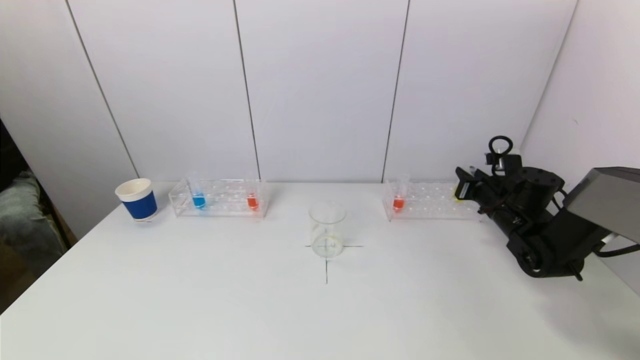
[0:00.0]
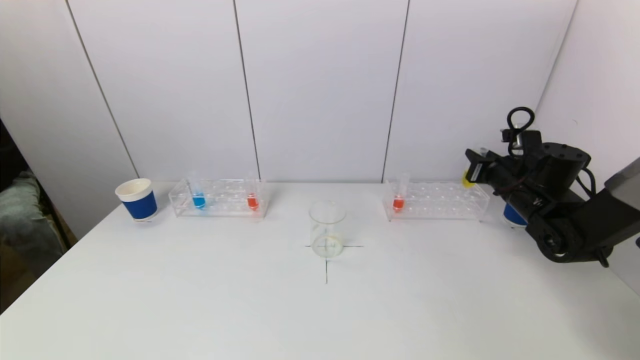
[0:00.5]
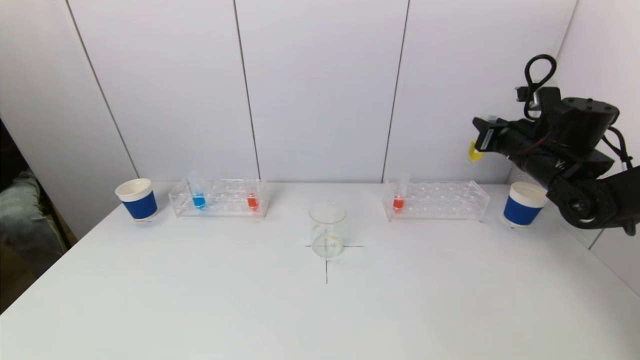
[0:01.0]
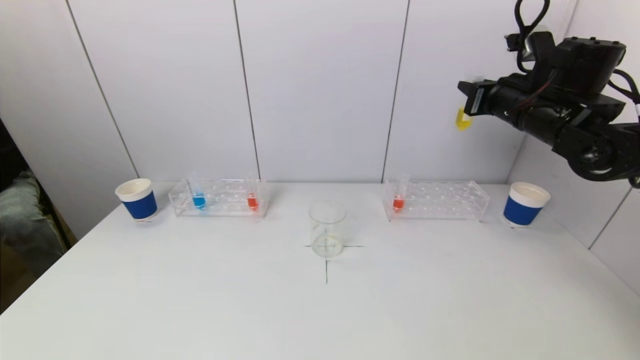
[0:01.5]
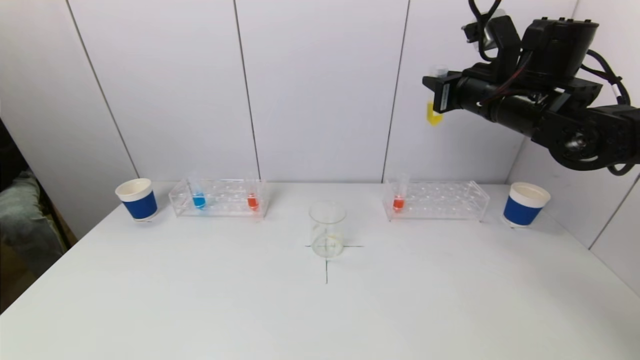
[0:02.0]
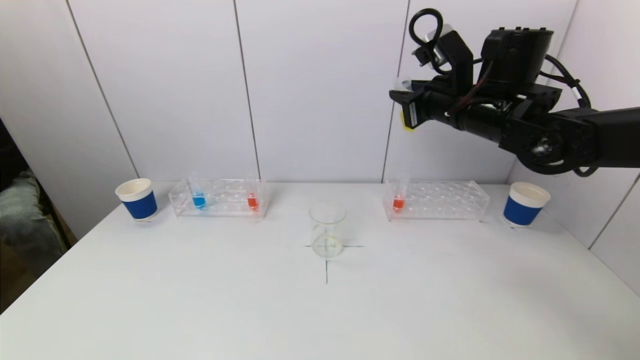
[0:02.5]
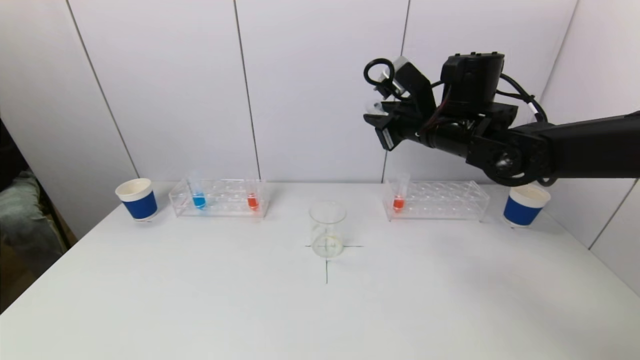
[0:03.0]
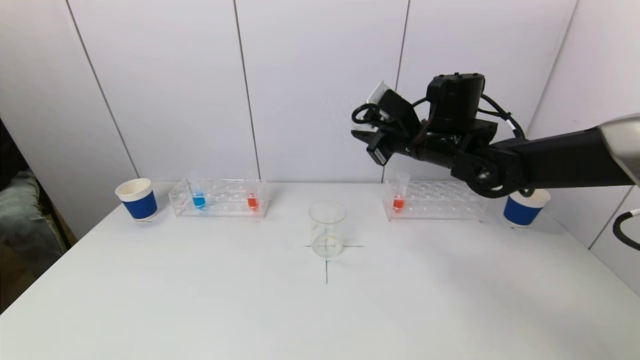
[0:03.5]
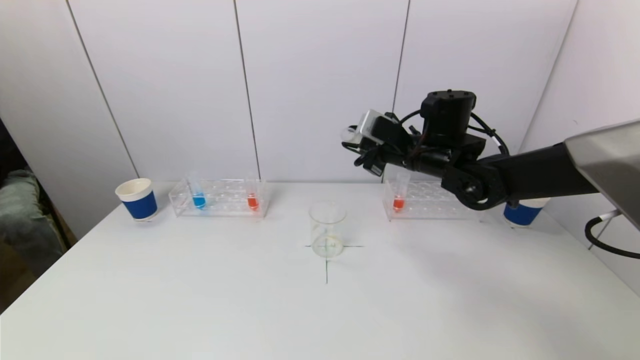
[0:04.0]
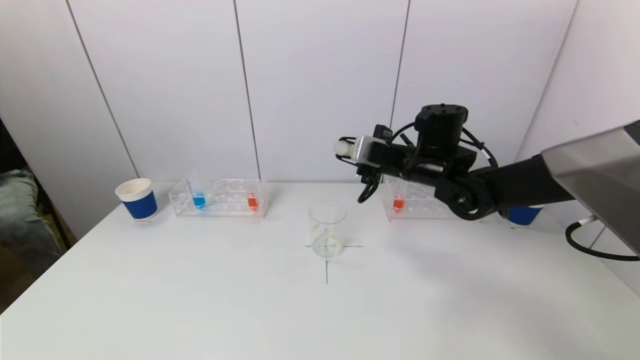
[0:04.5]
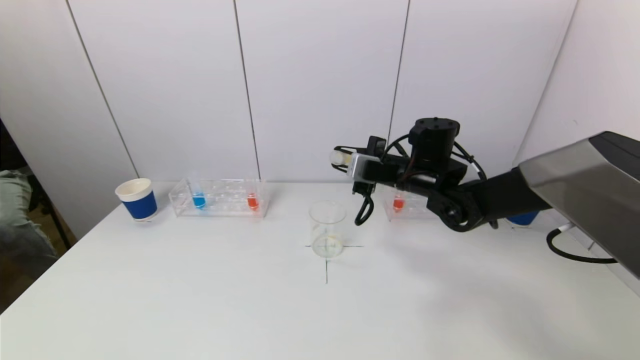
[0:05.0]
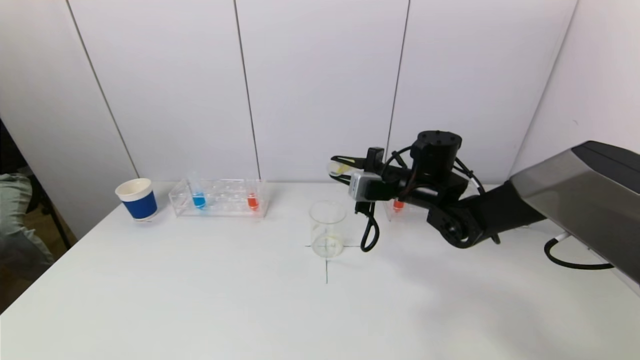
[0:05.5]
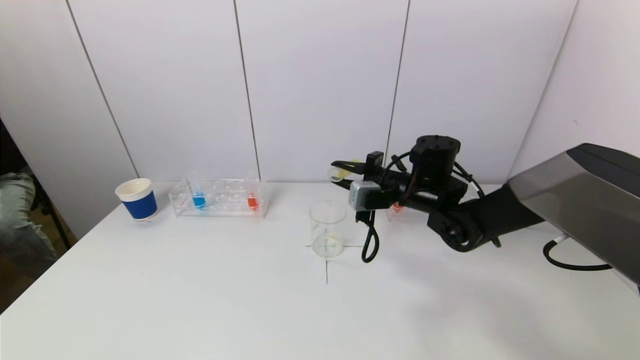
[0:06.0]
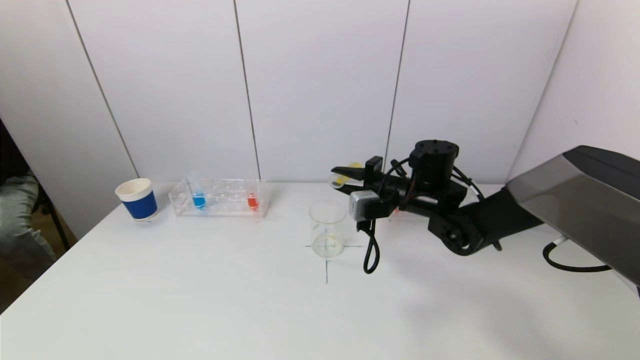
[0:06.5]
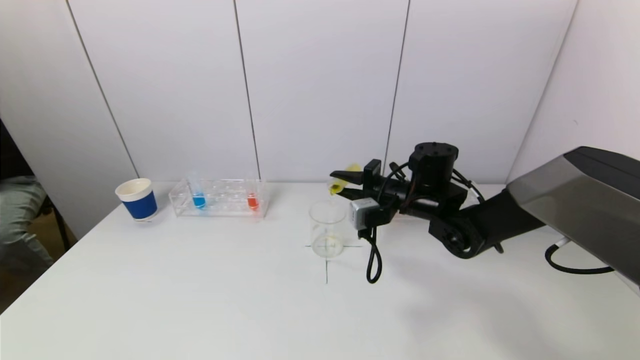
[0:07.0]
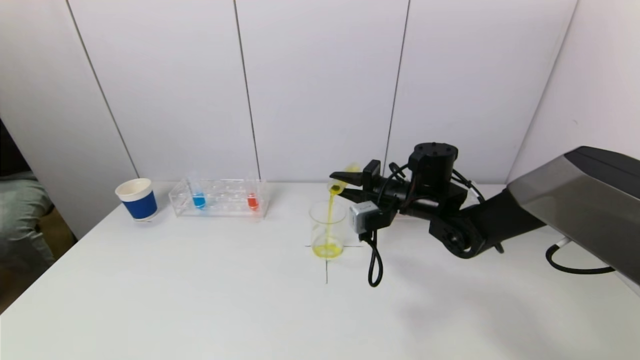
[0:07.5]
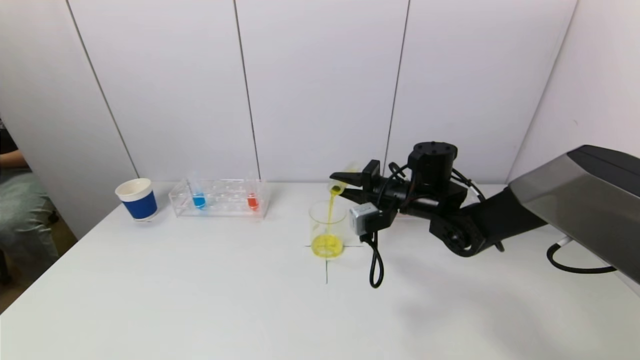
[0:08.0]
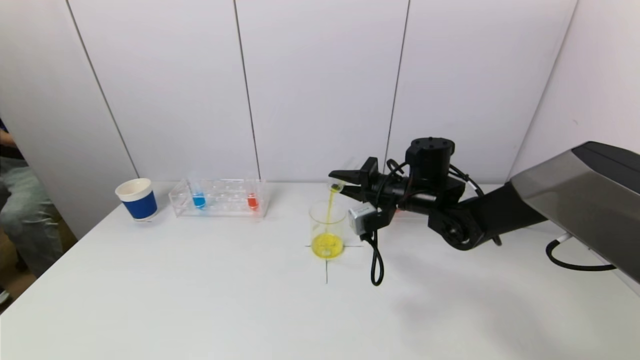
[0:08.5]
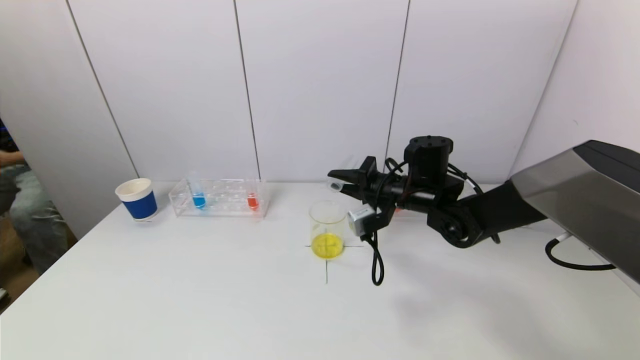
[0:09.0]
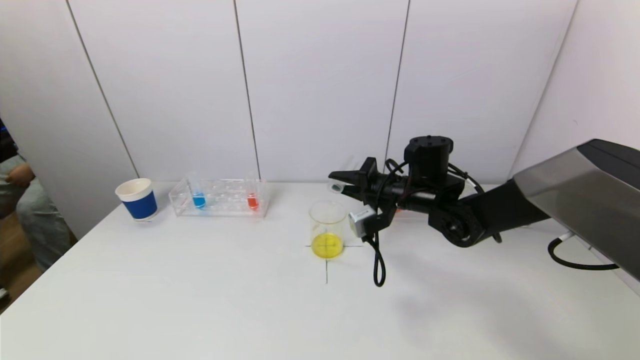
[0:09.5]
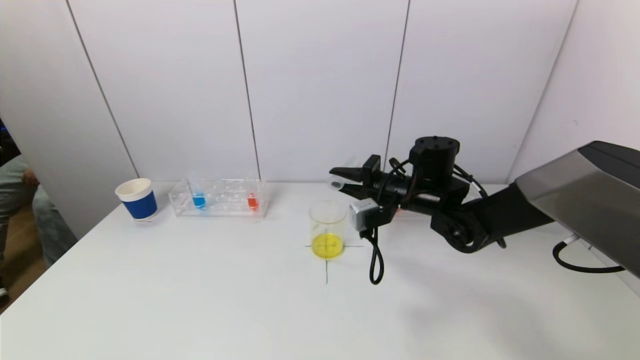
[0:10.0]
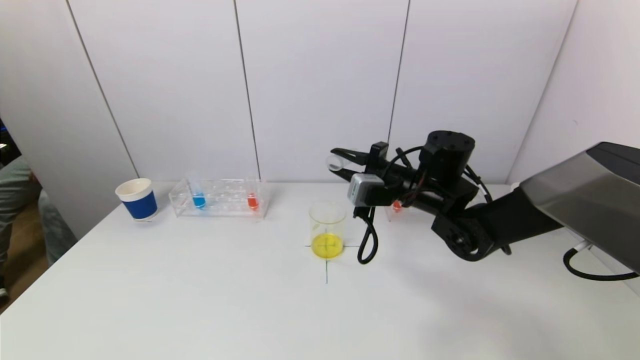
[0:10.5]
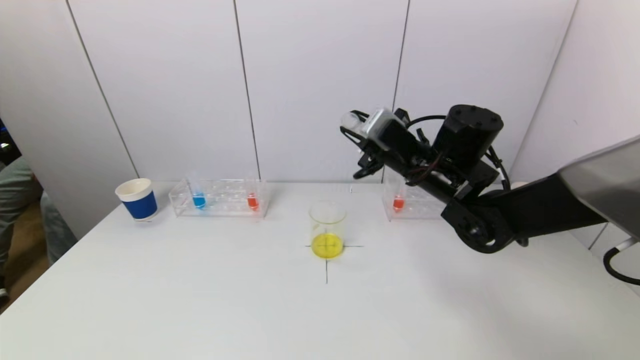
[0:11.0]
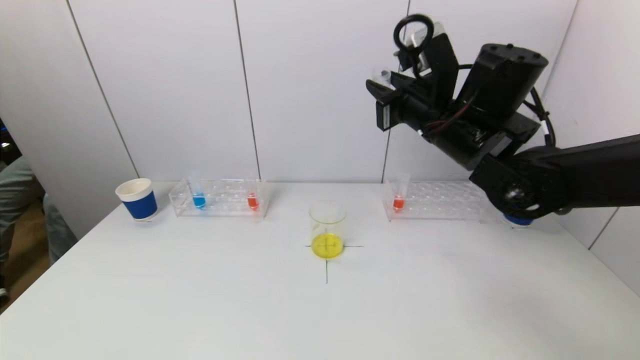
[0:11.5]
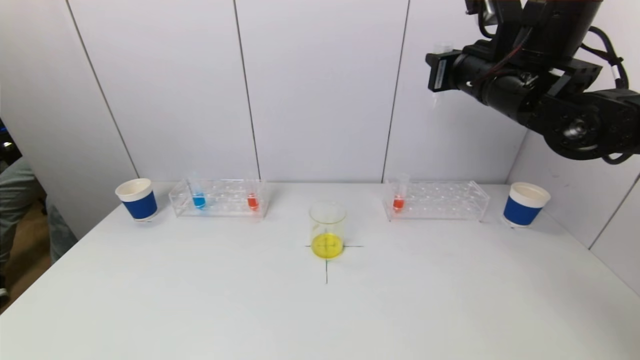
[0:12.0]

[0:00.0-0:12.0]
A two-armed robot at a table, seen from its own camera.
Task of the whole recording: pick up a test tube with pigment on left test tube rack and a test tube with pigment on right test tube rack by grippers and pour them into the beaker.
Step, 0:00.0 to 0:09.5: Pour the yellow reagent into the graduated cylinder with the right gripper.
0:00.0 to 0:02.0: The right gripper travels upward and to the left by approximately 25 cm.
0:02.0 to 0:04.0: The right gripper is displaced downward and to the left by roughly 10 cm.
0:04.0 to 0:06.0: The right gripper shifts about 5 cm downward.
0:06.0 to 0:08.0: There are only small adjustments of the grippers.
0:08.0 to 0:10.0: The grippers stay close to where they were, moving slightly.
0:10.0 to 0:12.0: The right gripper is displaced upward and to the right by about 20 cm.

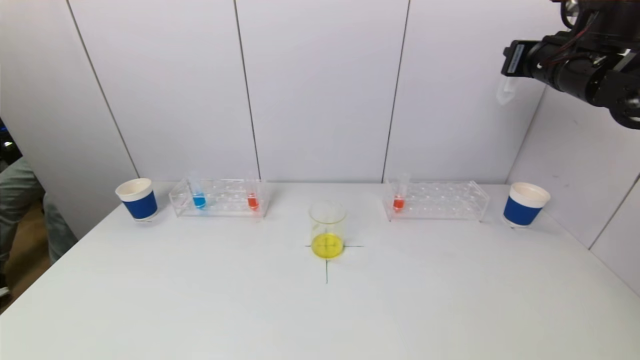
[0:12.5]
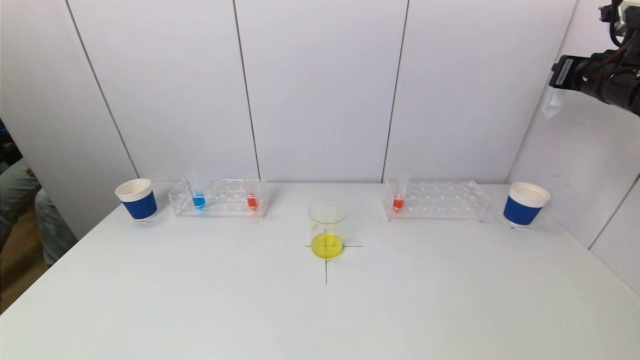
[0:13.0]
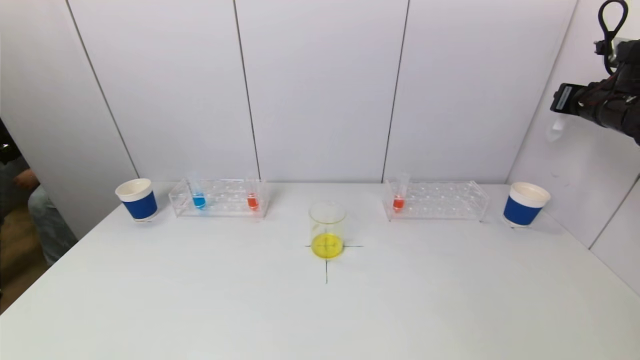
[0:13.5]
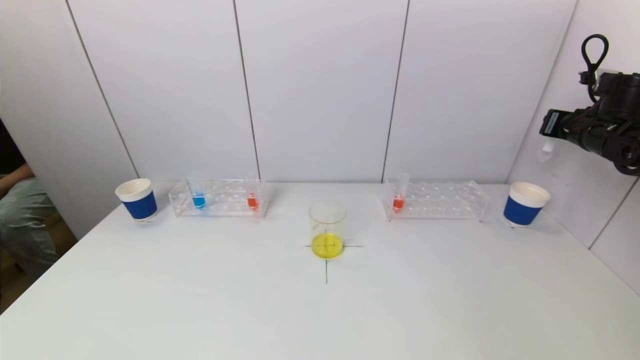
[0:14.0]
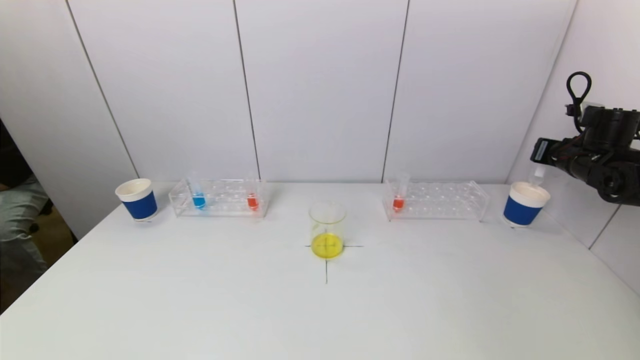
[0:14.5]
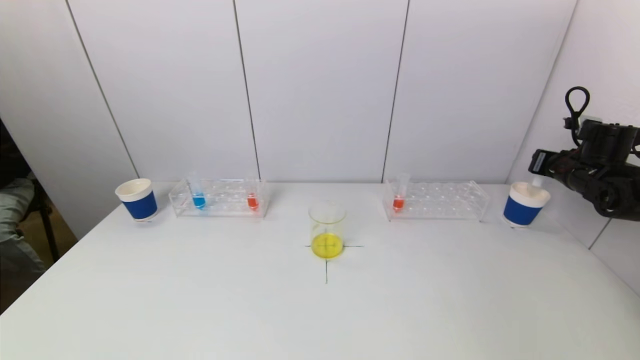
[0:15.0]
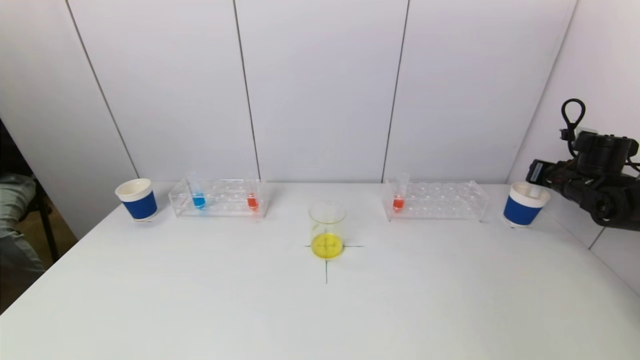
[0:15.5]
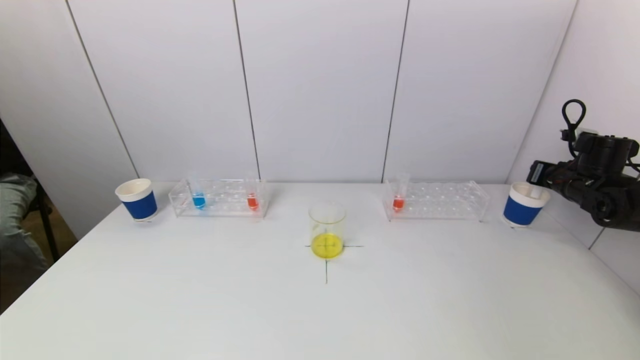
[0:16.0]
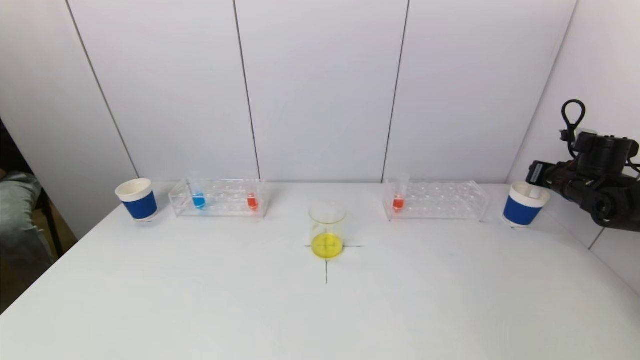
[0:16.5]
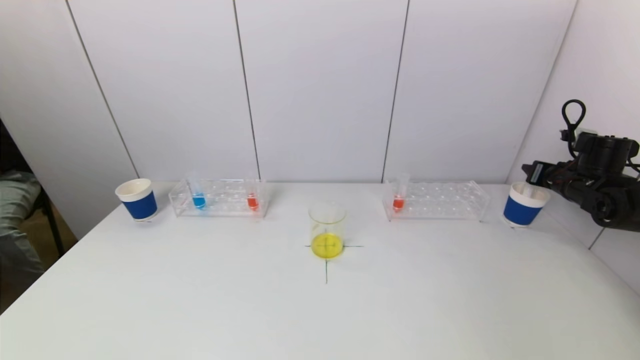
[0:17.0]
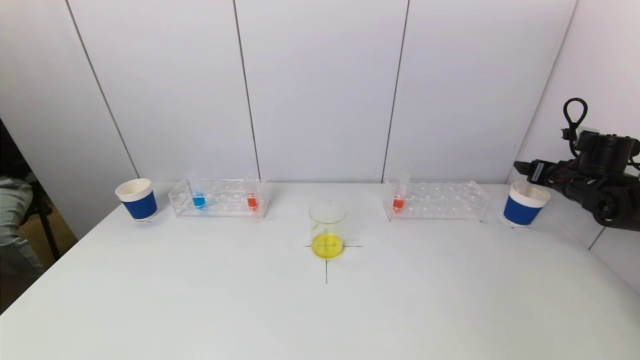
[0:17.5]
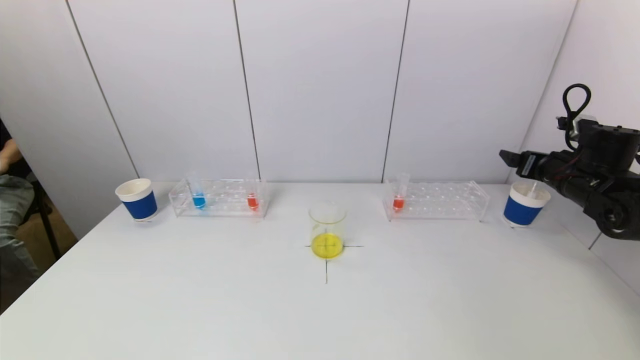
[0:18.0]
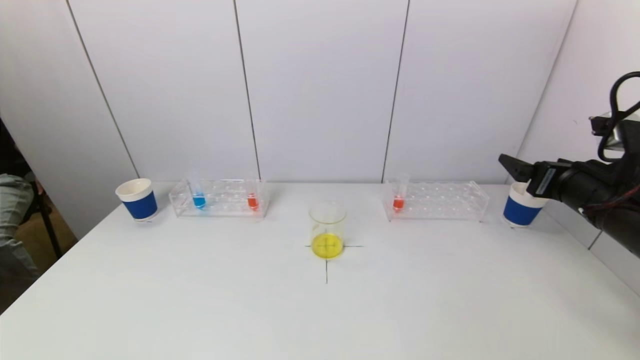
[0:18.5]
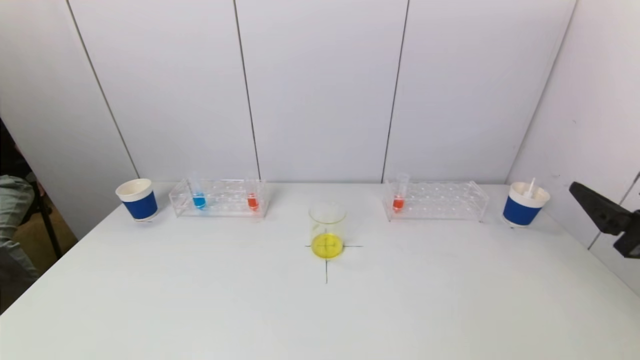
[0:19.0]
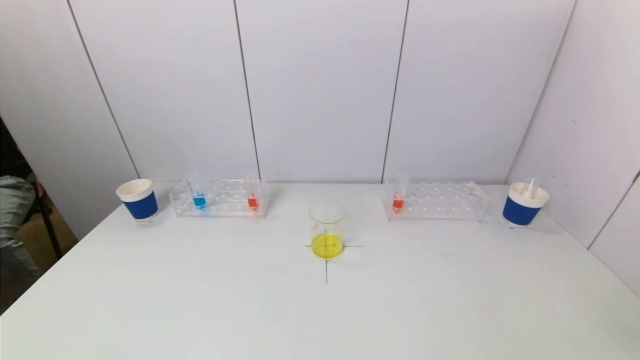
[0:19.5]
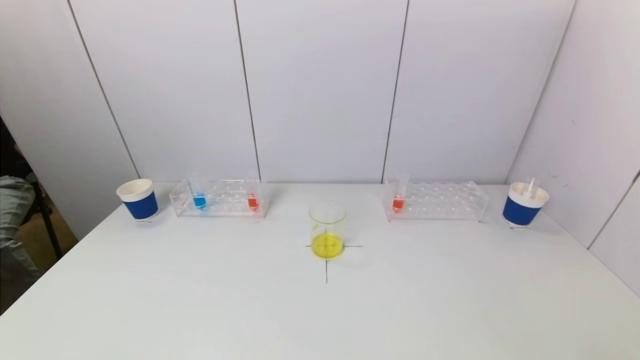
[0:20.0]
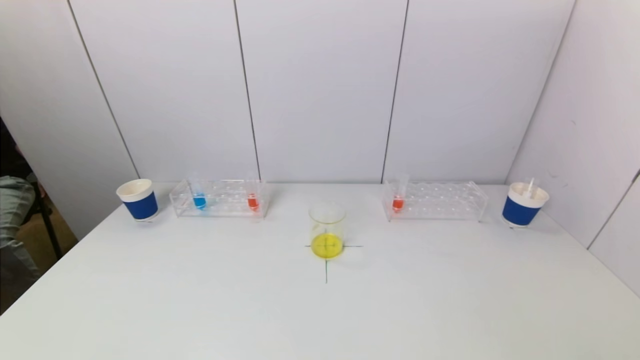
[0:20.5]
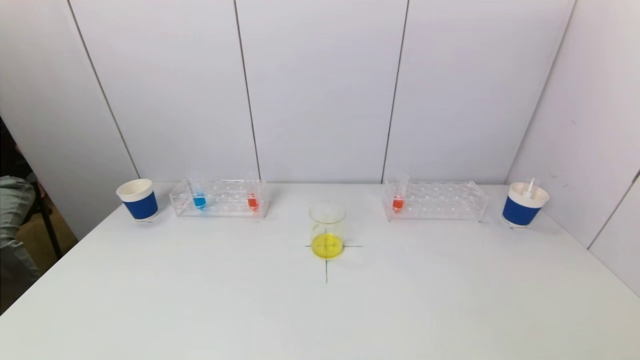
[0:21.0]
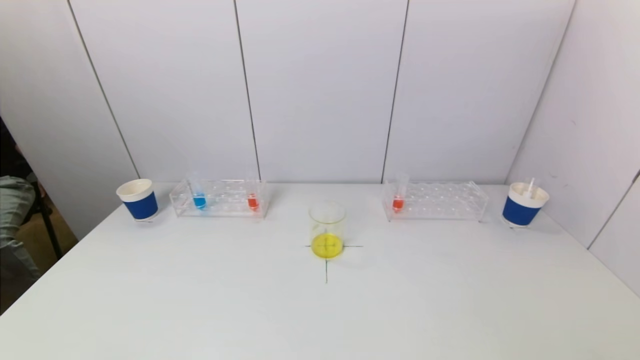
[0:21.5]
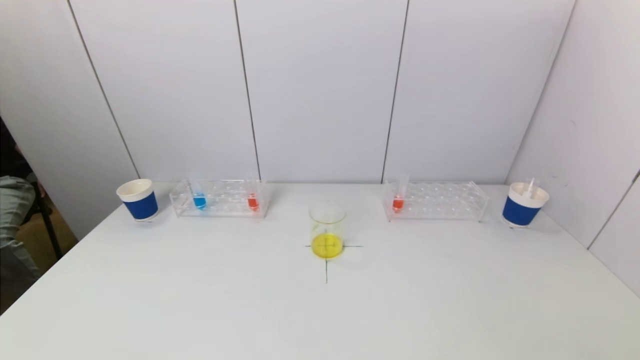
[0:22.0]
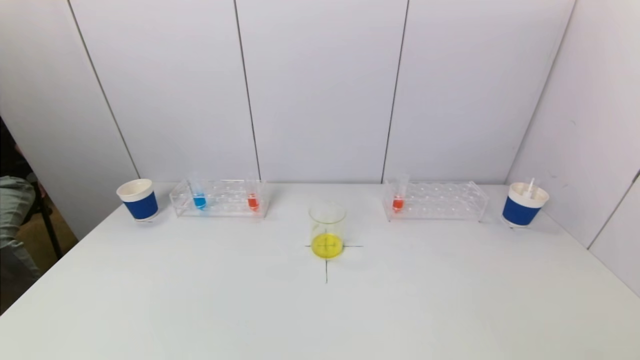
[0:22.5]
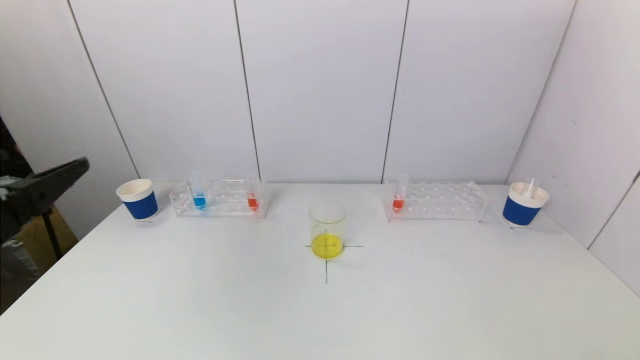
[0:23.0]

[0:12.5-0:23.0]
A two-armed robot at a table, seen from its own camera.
Task of the whole recording: pick up a test tube with pigment on left test tube rack and a test tube with pigment on right test tube rack by grippers and pour them into the beaker.
Step, 0:12.5 to 0:17.0: Place the test tube into the paper cup with the right gripper.
0:12.5 to 0:14.5: The right gripper travels downward and to the right by about 20 cm.
0:14.5 to 0:16.5: The grippers stay close to where they were, moving slightly.
0:16.5 to 0:19.0: The right gripper is displaced backward and to the left by roughly 30 cm, and opens up.
0:19.0 to 0:21.0: The right gripper shifts roughly 20 cm backward and downward.
0:21.0 to 0:23.0: The left gripper goes approximately 25 cm upward and forward.
